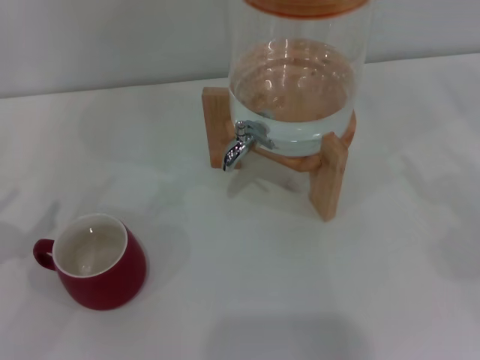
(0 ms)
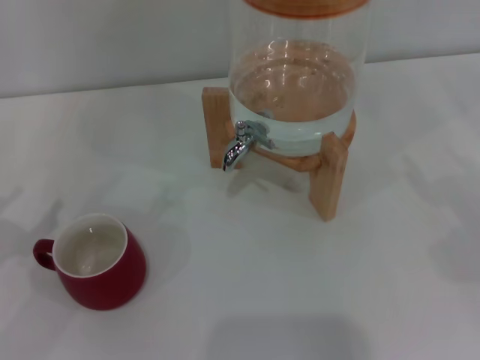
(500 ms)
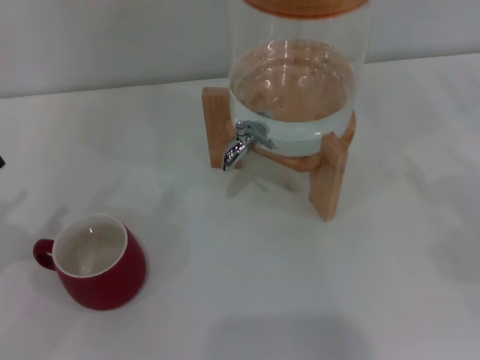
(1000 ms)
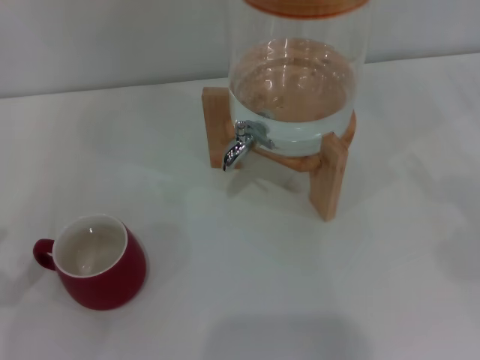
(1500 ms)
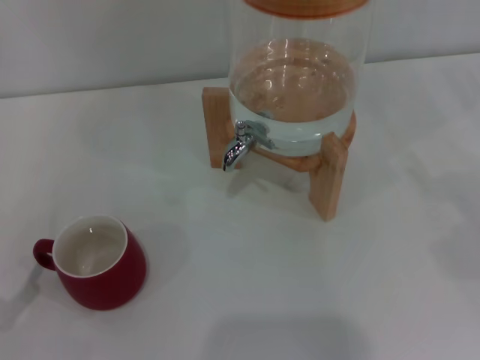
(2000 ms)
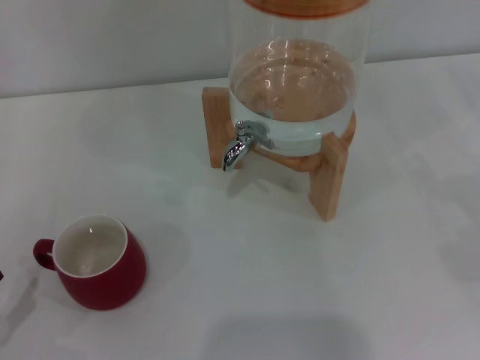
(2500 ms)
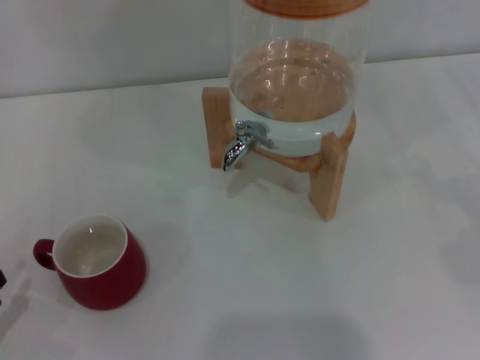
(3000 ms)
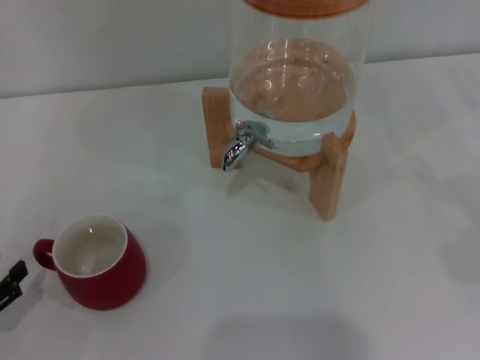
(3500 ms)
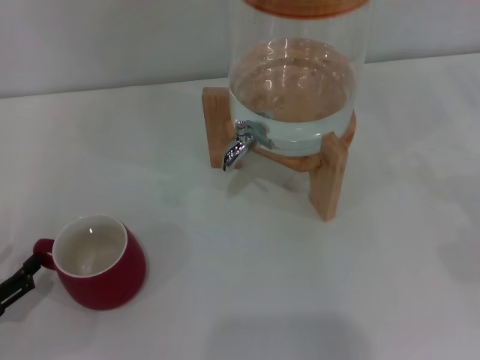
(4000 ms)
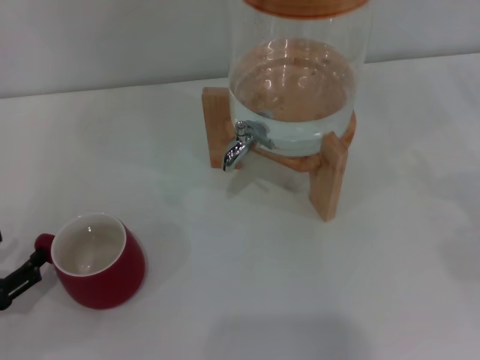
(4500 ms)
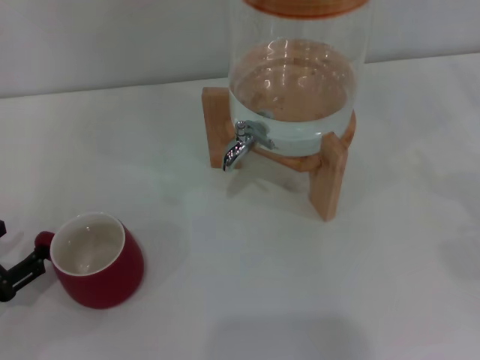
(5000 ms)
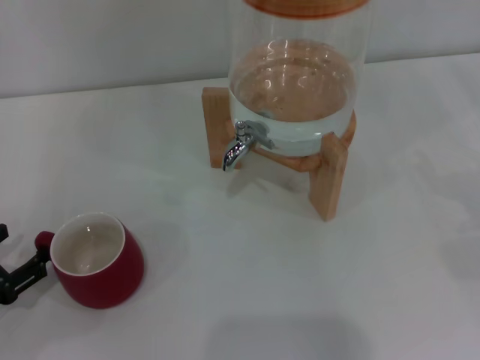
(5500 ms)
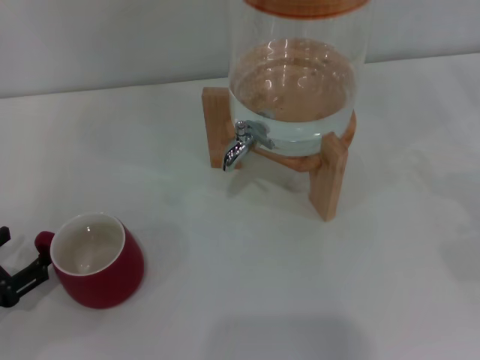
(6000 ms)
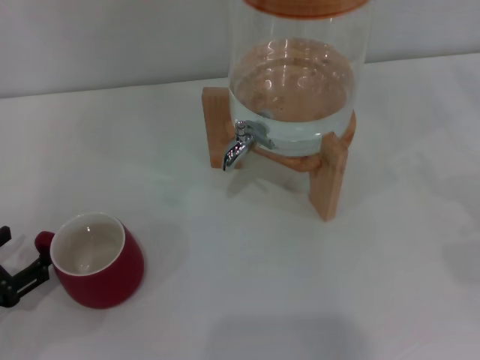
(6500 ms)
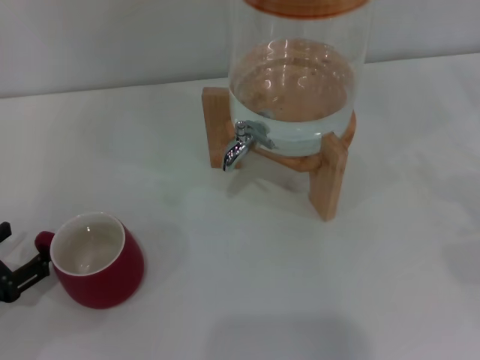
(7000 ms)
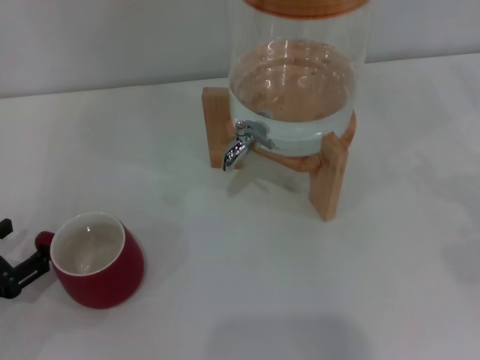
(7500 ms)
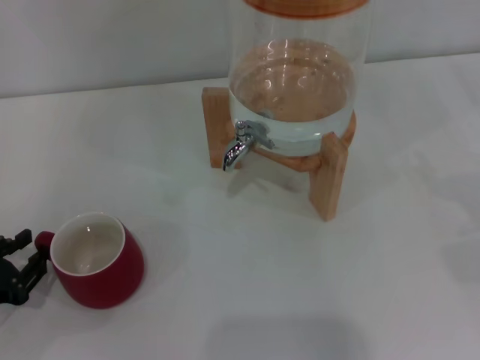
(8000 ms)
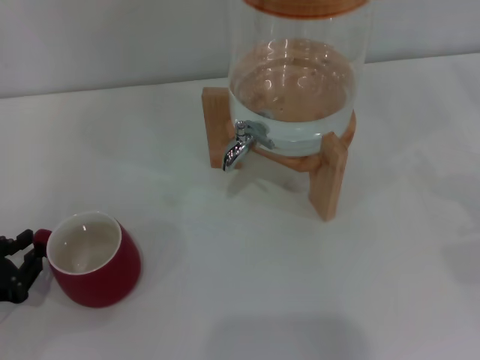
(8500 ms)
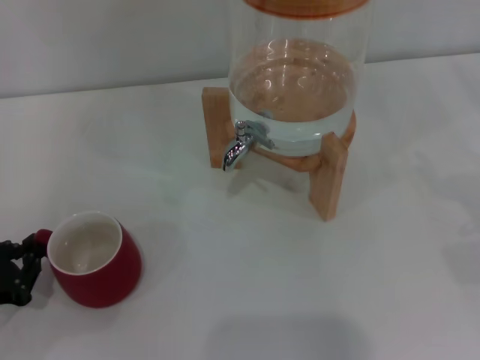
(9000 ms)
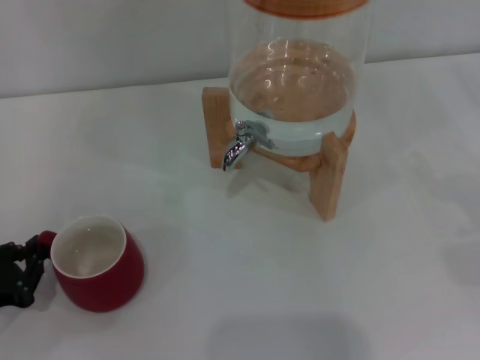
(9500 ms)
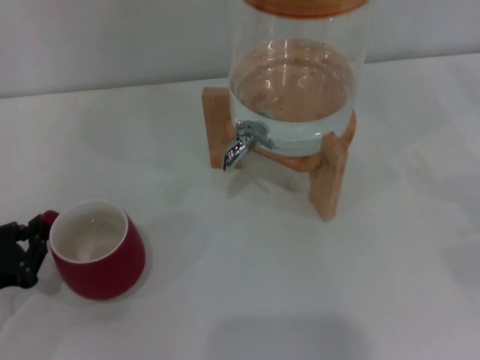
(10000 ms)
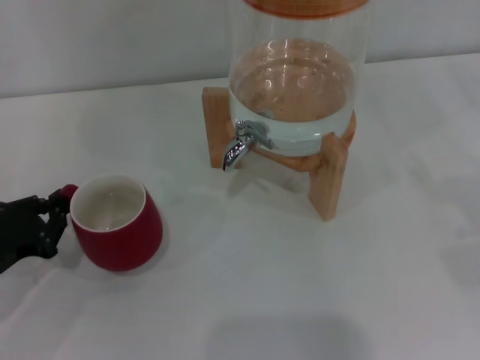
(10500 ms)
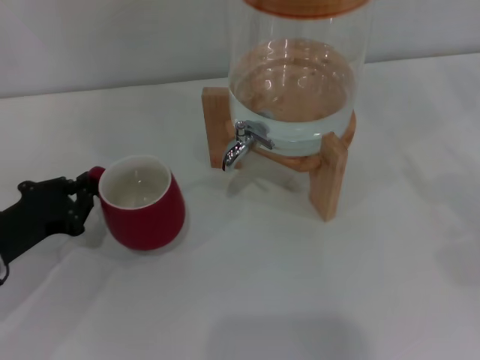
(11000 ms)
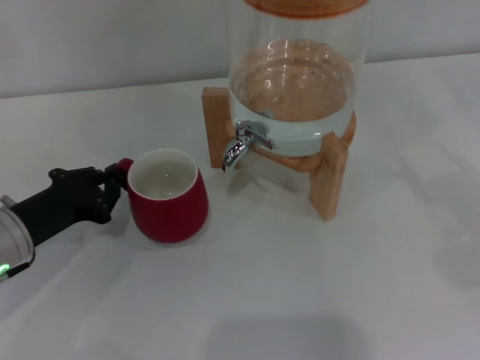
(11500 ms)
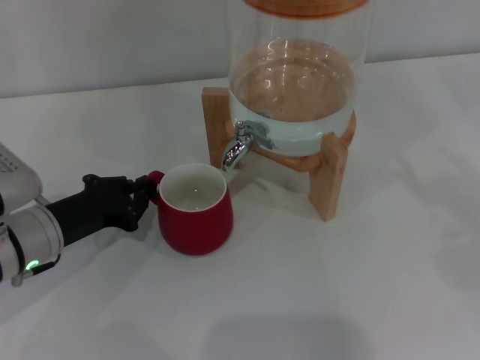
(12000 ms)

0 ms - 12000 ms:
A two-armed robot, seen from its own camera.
Task of the whole recording: the left gripper pick up the red cup and place it horizontally under the faucet, the right gripper turn on the faucet to fill the cup, and then turn off the faucet.
2000 ms - 4000 ms: The left gripper changes place by about 5 cm.
4000 ms - 6000 ms: The grippers move only a little.
6000 ms - 8000 ms: The left gripper closes.
8000 ms - 10000 ms: The left gripper closes its fingers.
10000 ms - 12000 ms: The left gripper heads to the right and forward, covering some 15 cm.

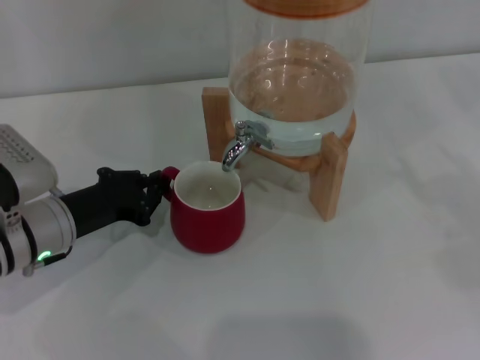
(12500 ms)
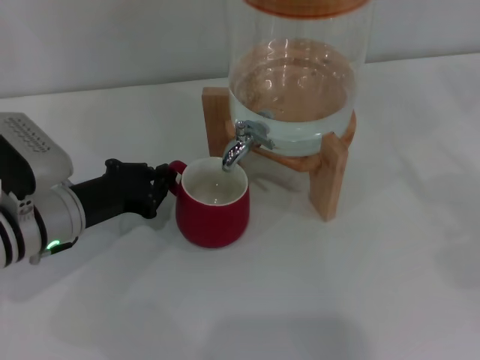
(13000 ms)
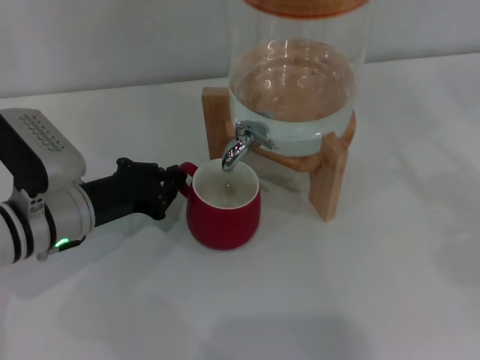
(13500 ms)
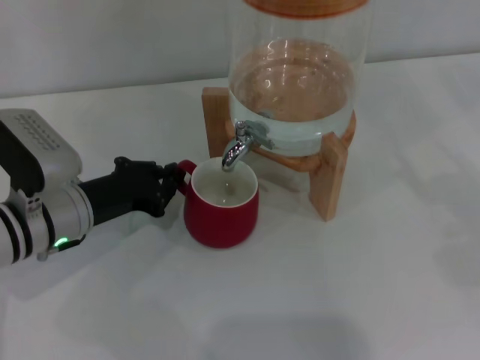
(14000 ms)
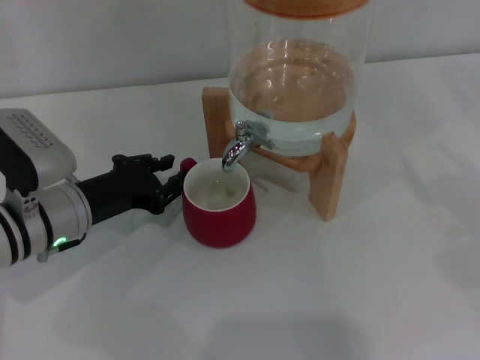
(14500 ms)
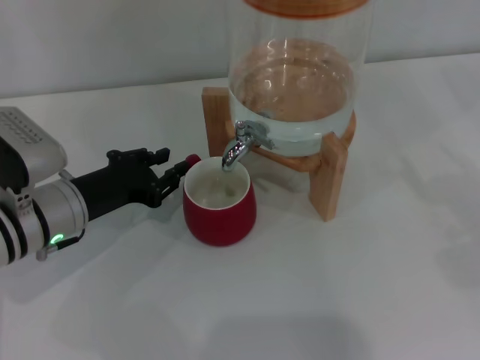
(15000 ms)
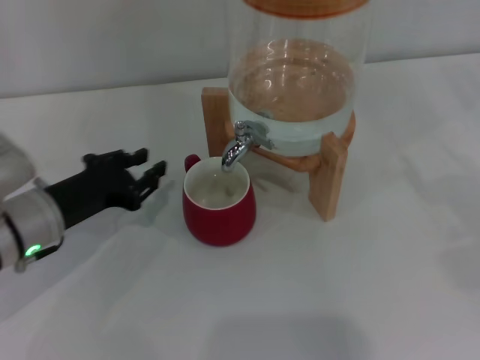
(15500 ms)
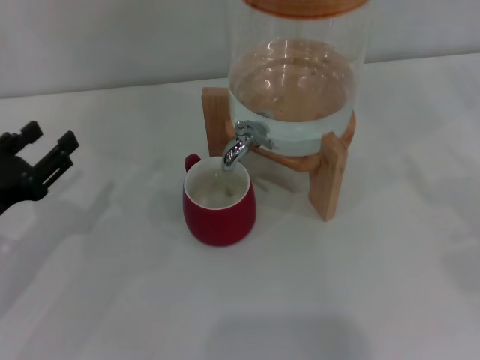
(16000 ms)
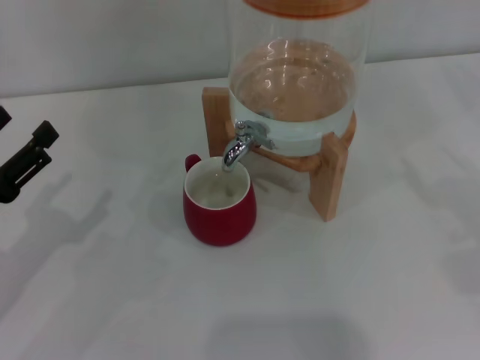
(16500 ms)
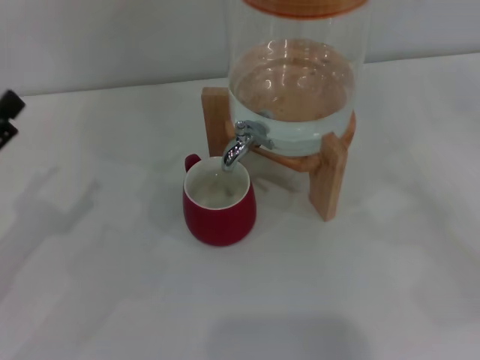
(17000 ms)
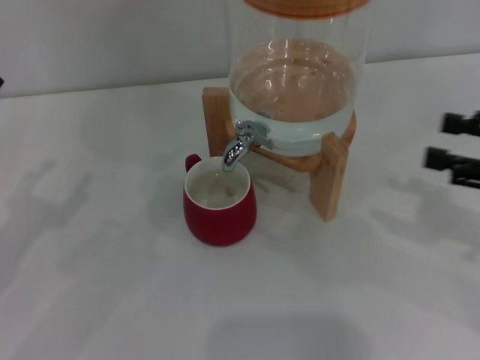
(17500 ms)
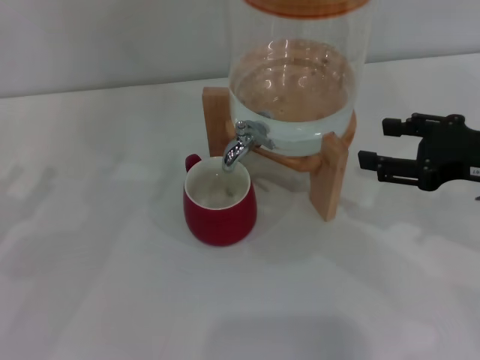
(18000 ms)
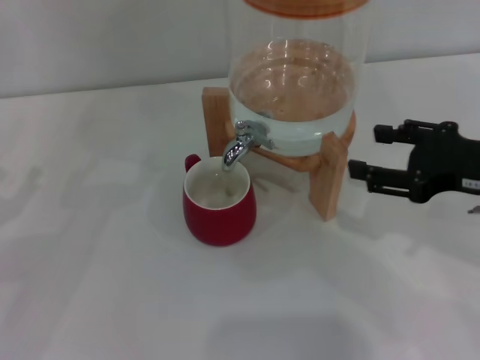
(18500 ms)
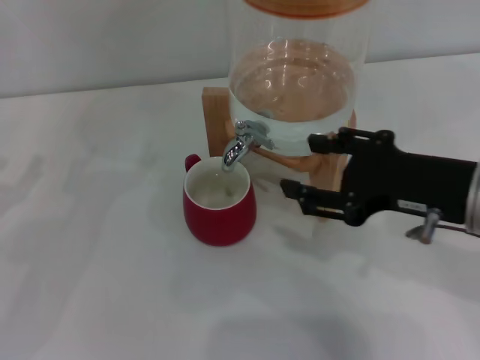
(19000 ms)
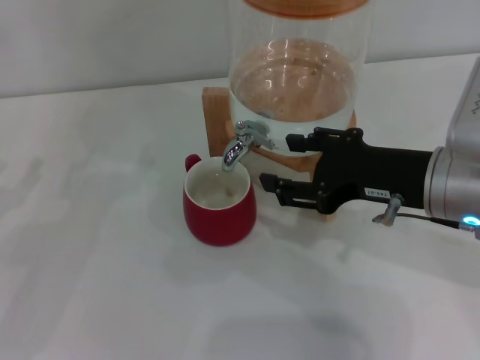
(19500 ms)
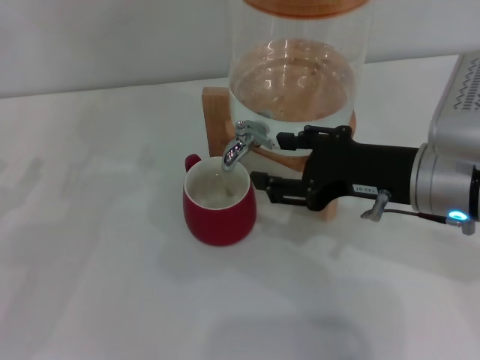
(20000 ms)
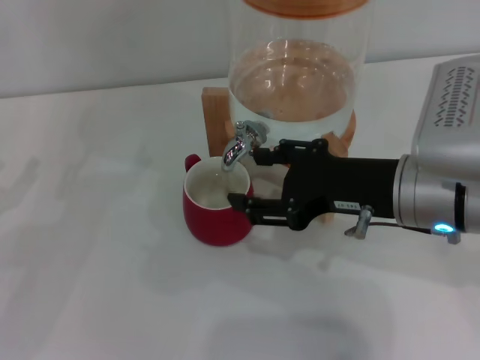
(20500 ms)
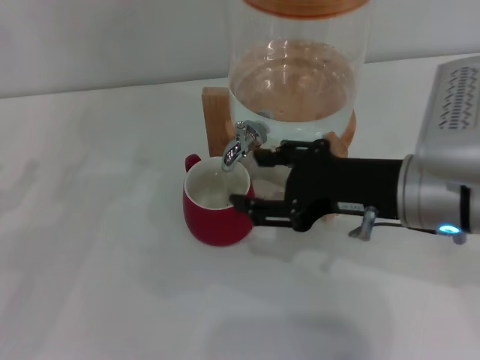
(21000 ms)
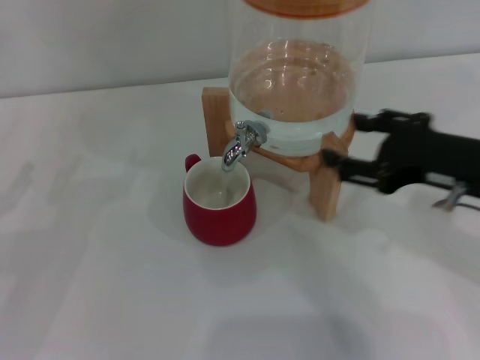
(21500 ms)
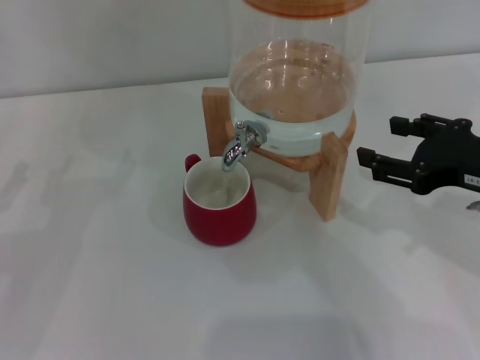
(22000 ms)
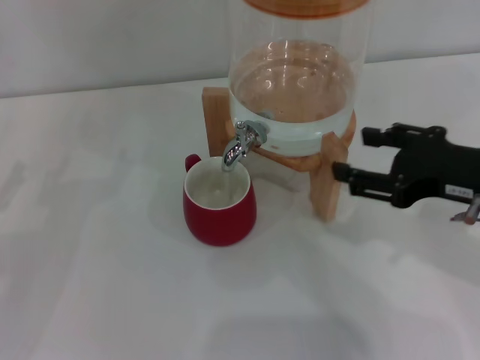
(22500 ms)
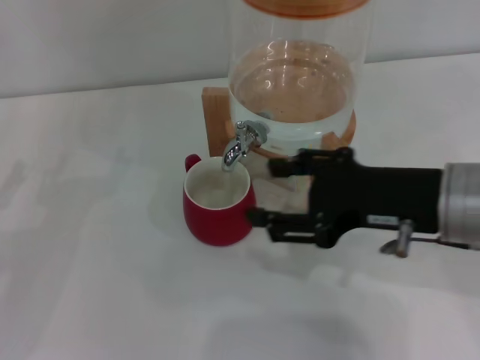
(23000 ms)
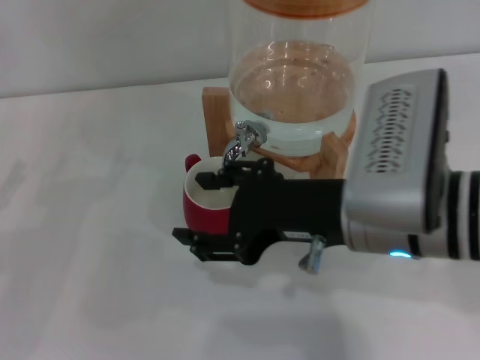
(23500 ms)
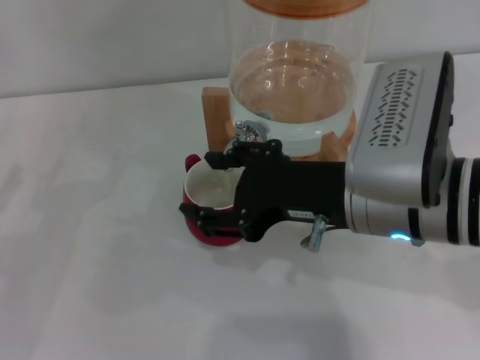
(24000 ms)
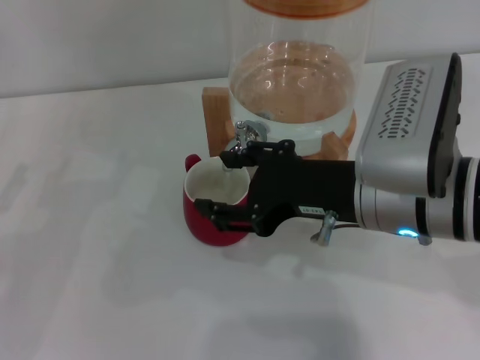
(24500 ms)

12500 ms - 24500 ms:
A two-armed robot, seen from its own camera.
Task of the whole recording: the left gripper pick up the red cup and place it horizontally under the faucet, the right gripper turn on the faucet to fill the cup, and then turn off the faucet.
Step, 12500 ms - 15000 ms: Move the cup beneath the water dispenser nozzle with the left gripper.
Step, 16000 ms - 23500 ms: Open the dispenser valve and fill the cup with water with the right gripper.
12500 ms - 14500 ms: The grippers stay close to where they were, moving slightly.
14500 ms - 16500 ms: The left gripper travels to the left and backward by approximately 15 cm, and opens its fingers.
16500 ms - 18500 ms: The right gripper travels to the left by roughly 20 cm, while the left gripper moves to the left, some 5 cm.
18500 ms - 20500 ms: The right gripper travels to the left by about 10 cm.
20500 ms - 22500 ms: The right gripper shifts roughly 10 cm to the right.
22500 ms - 24500 ms: The right gripper is displaced to the left by about 10 cm.

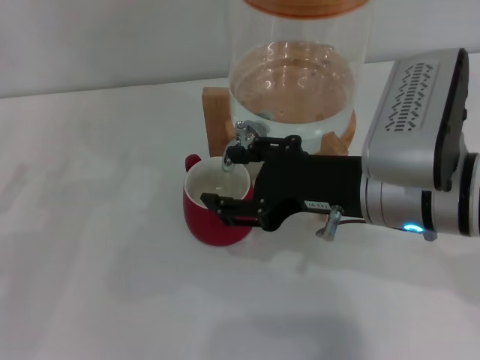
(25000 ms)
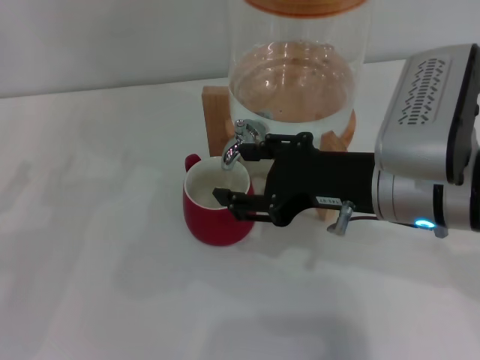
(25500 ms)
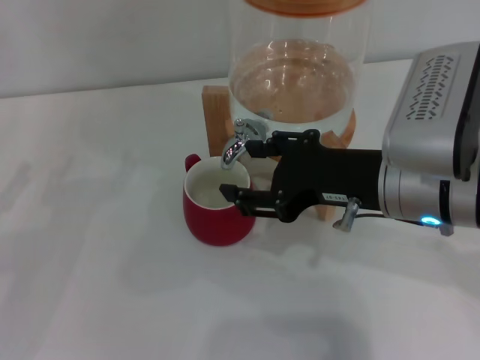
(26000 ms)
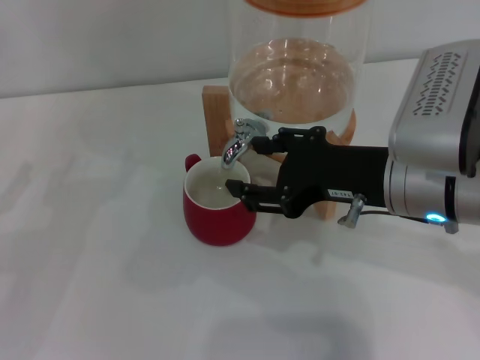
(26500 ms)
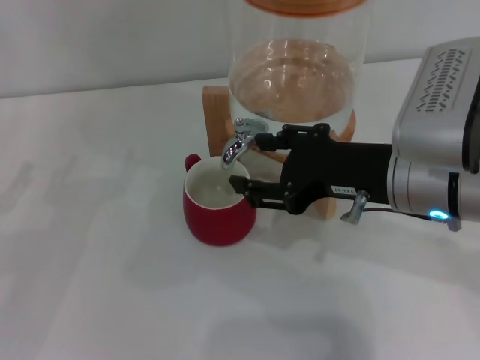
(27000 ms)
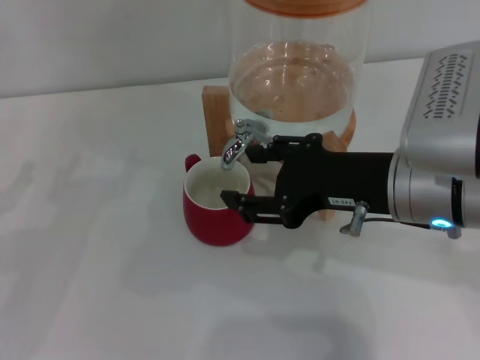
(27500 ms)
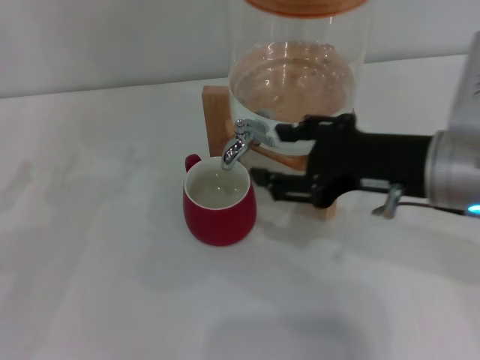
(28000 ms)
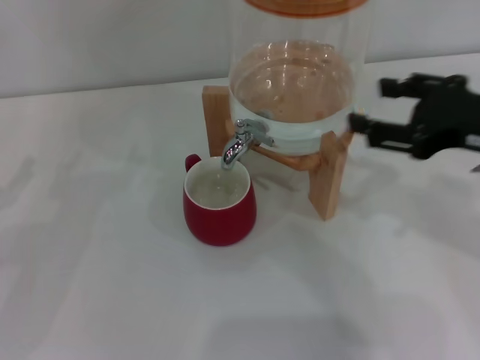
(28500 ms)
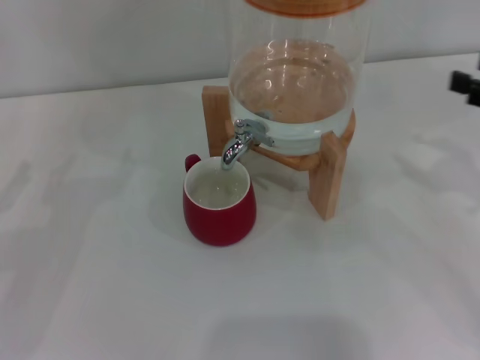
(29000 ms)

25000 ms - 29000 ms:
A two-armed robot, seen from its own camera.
Task of the whole recording: the left gripper pick up the red cup and place it horizontally under the faucet, the right gripper turn on the faucet to fill the cup, and then turn off the faucet.
Step, 25000 ms - 28000 ms: Close the dispenser valve with the right gripper.
25000 ms - 27000 ms: The grippers make only small movements.
27000 ms - 29000 ms: The right gripper moves to the right, roughly 20 cm.
